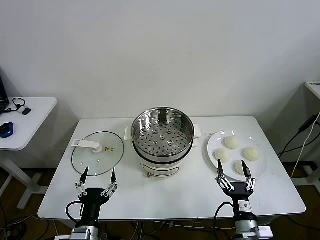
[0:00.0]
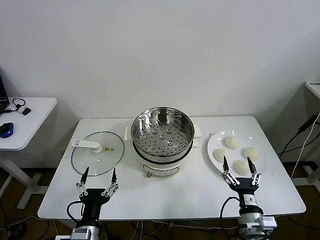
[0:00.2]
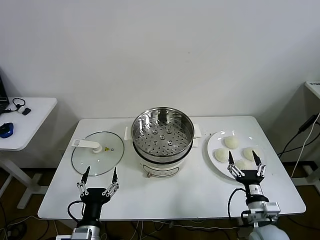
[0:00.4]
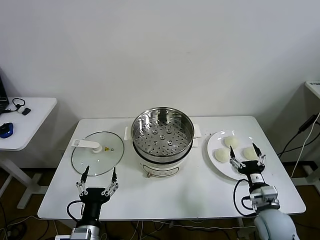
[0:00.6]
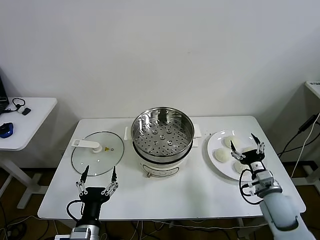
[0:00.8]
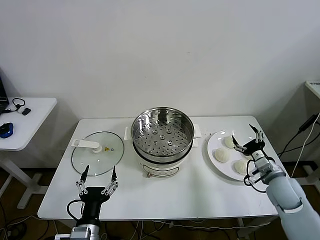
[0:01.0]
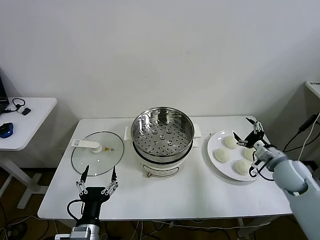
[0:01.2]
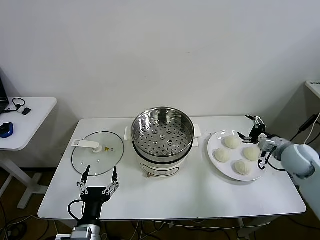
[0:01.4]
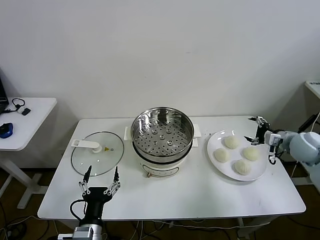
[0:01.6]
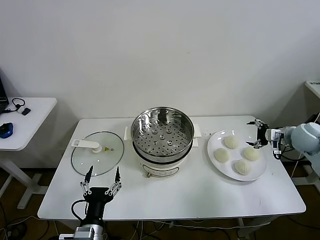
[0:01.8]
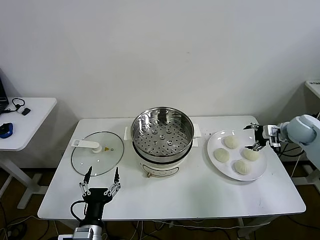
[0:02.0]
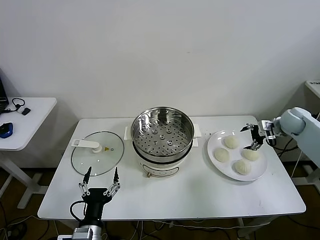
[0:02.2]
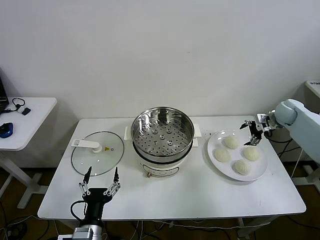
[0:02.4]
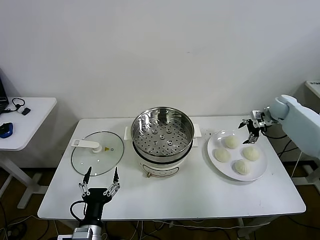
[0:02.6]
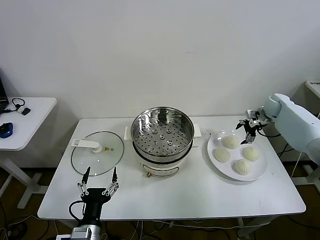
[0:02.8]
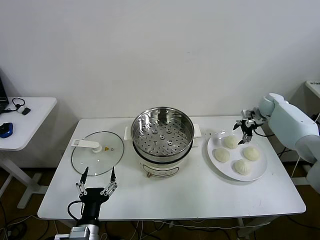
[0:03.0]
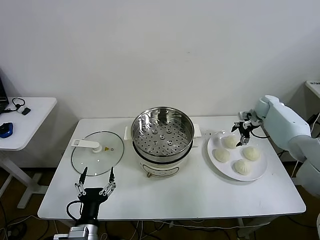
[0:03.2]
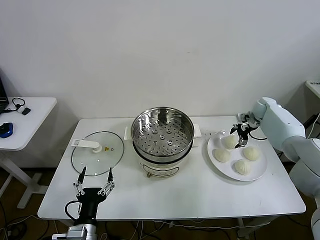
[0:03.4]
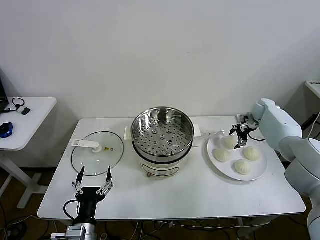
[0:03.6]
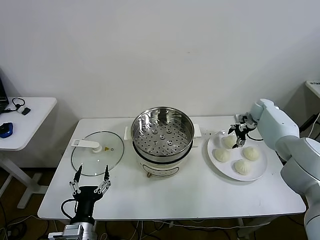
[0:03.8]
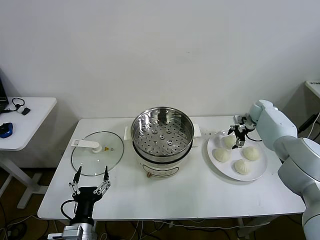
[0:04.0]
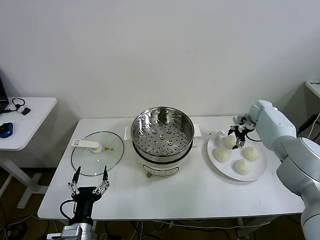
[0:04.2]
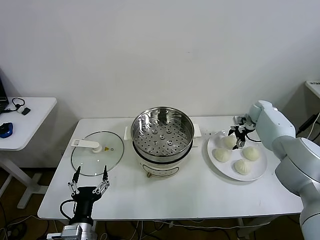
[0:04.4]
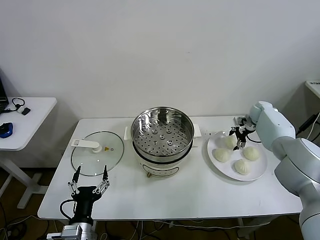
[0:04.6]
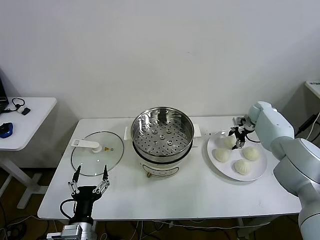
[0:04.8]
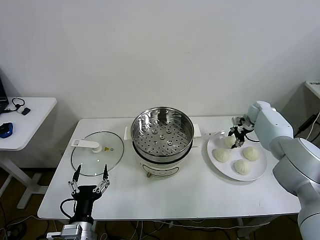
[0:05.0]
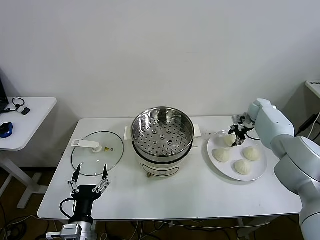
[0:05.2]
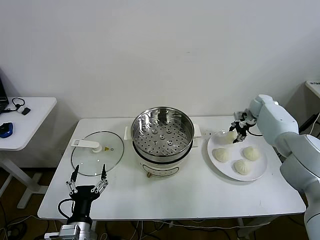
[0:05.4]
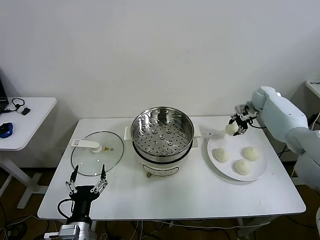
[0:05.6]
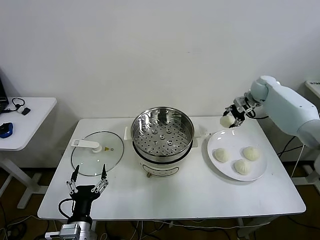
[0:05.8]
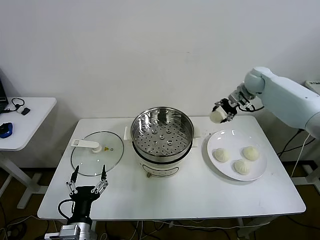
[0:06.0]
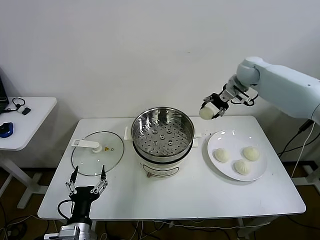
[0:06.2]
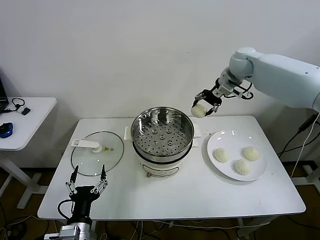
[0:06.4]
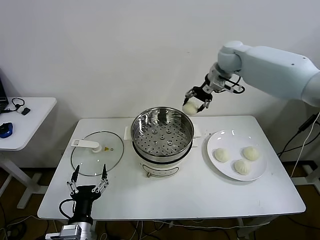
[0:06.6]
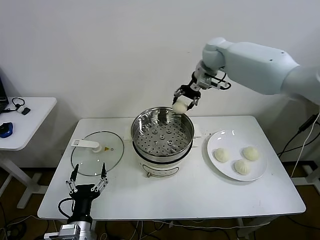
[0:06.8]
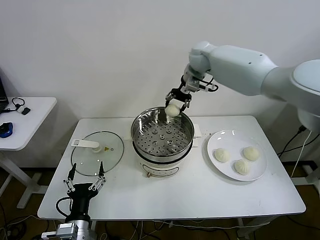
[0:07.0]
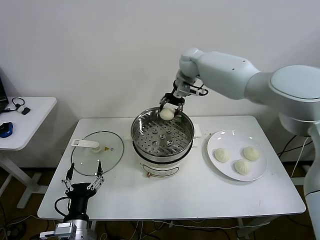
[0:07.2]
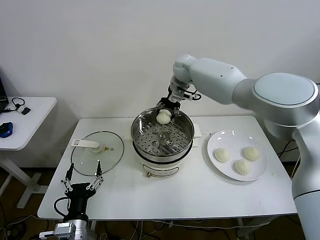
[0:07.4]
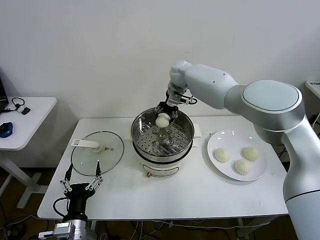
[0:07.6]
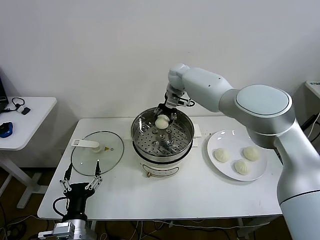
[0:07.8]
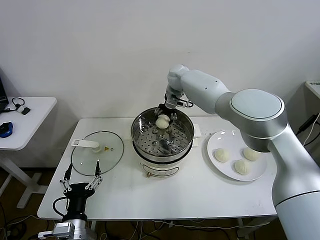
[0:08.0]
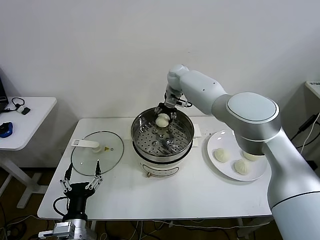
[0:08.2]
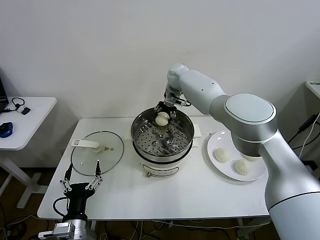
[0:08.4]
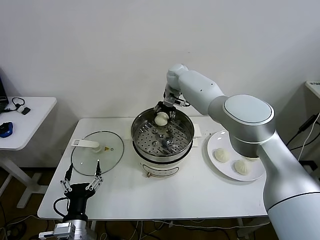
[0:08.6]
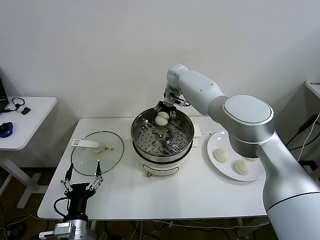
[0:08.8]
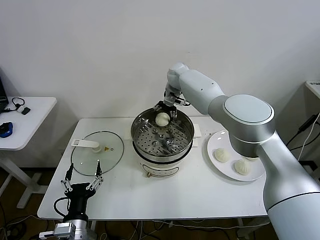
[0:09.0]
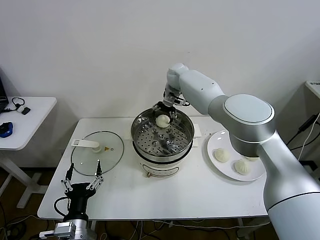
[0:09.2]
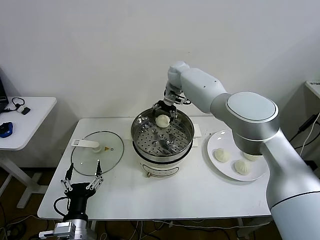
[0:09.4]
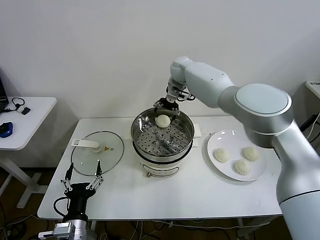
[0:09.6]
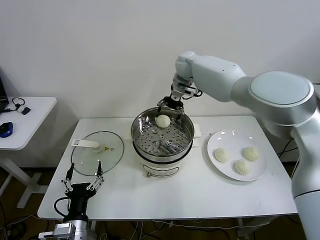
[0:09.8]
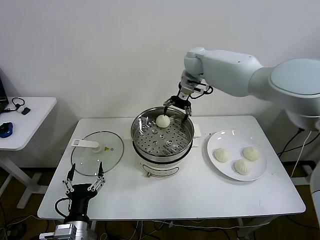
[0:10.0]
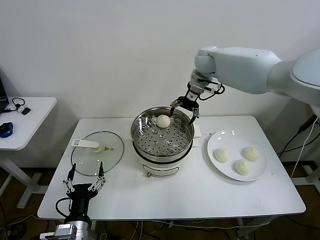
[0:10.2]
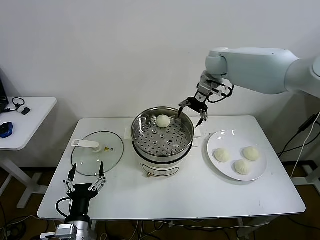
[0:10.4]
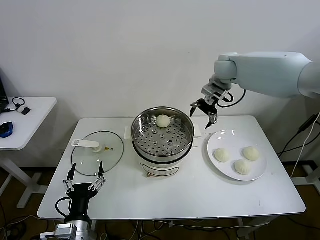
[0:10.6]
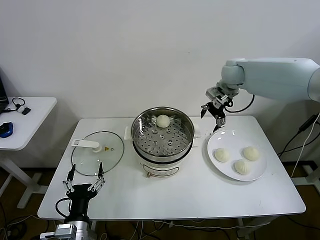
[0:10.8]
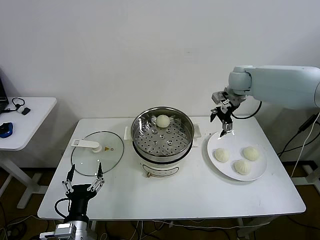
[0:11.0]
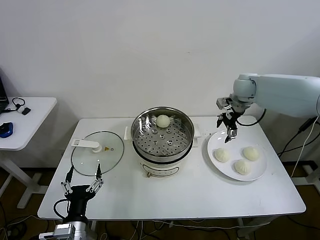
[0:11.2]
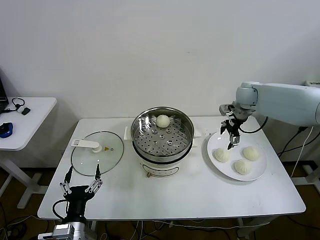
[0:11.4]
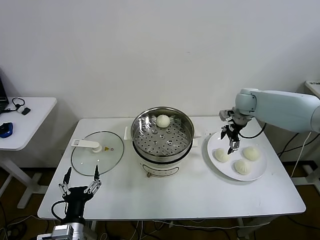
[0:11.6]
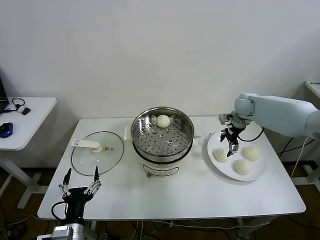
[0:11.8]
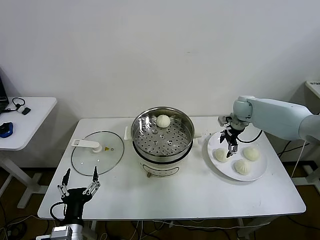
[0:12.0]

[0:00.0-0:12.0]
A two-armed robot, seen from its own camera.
Step, 0:00.0 to 0:05.0: Grasp the baozi in the plate with right gripper.
Step, 0:05.4 to 0:09.4: Place the baozi on the steamer with right gripper.
0:01.6 to 0:03.0: The right gripper is displaced forward by approximately 20 cm.
0:03.0 to 0:04.4: There are only small adjustments of the grippers.
0:04.4 to 0:06.0: The right gripper goes some 20 cm upward and to the left, and closes up.
0:06.0 to 0:07.6: The right gripper shifts about 25 cm to the left.
0:07.6 to 0:09.0: The right gripper opens.
0:09.0 to 0:10.4: The right gripper moves to the right, upward and backward, approximately 15 cm.
0:10.4 to 0:12.0: The right gripper shifts about 20 cm downward and to the right.

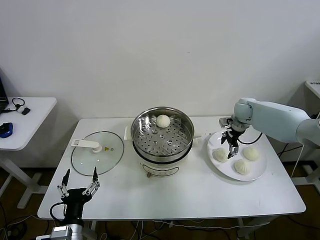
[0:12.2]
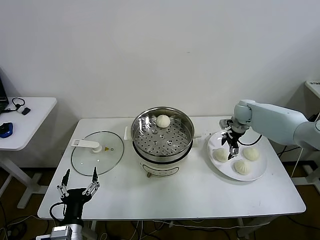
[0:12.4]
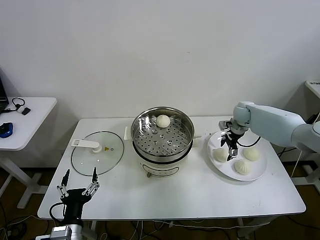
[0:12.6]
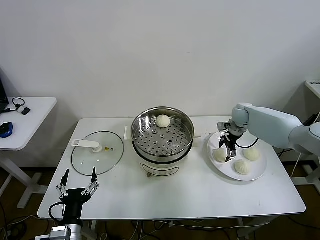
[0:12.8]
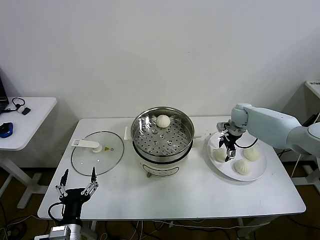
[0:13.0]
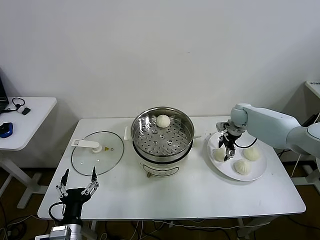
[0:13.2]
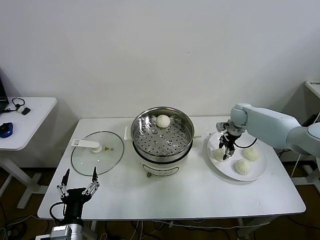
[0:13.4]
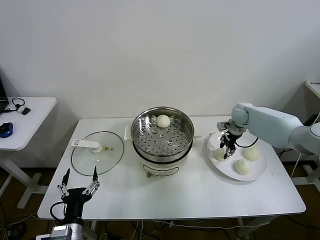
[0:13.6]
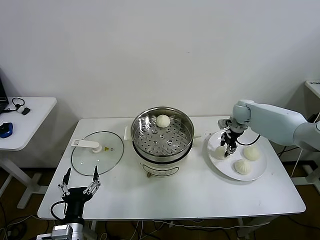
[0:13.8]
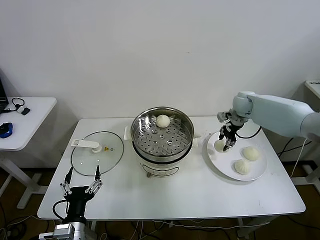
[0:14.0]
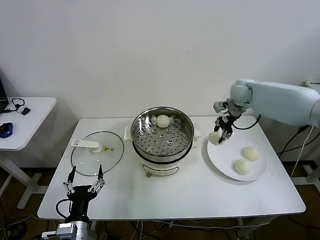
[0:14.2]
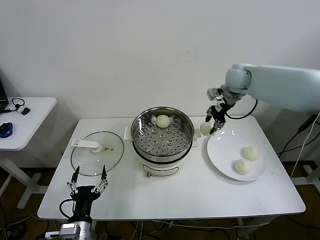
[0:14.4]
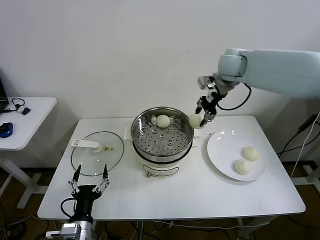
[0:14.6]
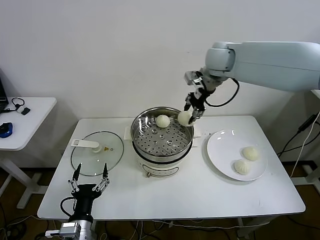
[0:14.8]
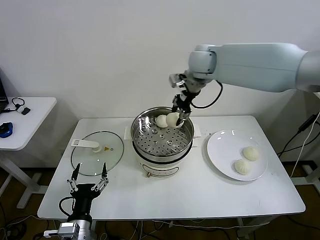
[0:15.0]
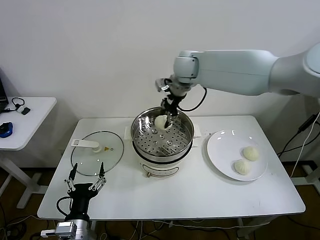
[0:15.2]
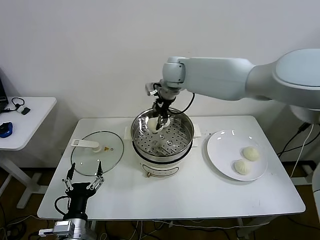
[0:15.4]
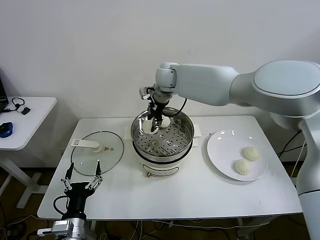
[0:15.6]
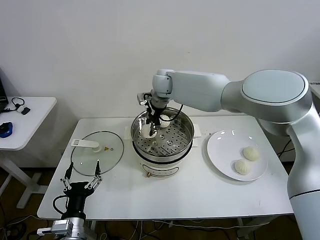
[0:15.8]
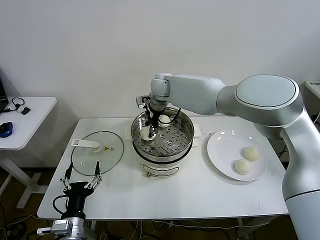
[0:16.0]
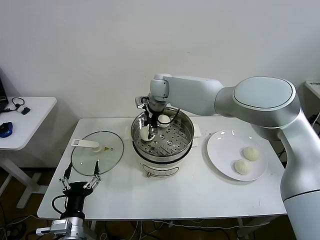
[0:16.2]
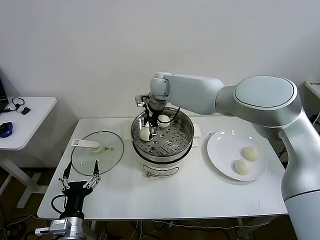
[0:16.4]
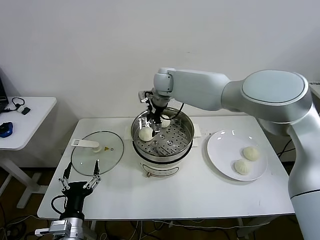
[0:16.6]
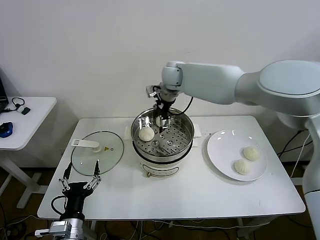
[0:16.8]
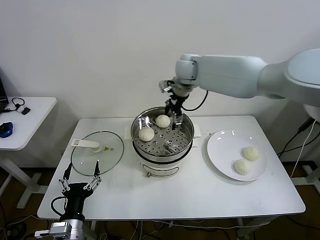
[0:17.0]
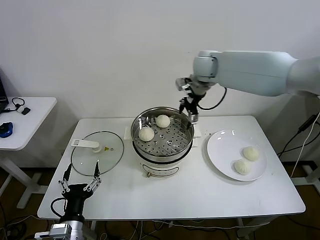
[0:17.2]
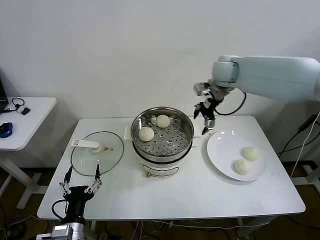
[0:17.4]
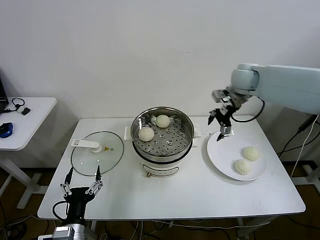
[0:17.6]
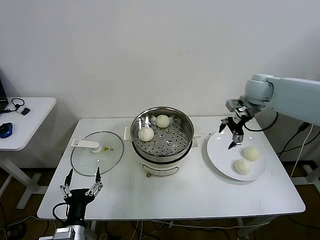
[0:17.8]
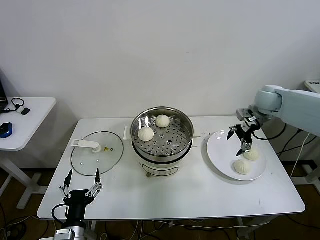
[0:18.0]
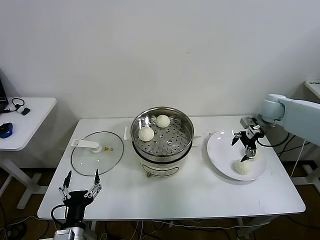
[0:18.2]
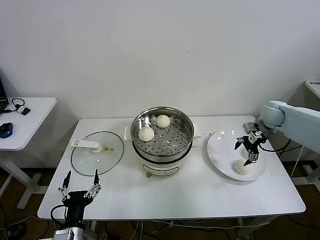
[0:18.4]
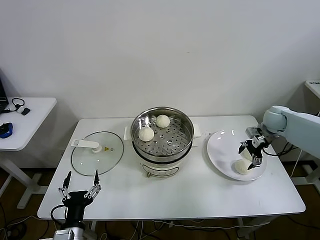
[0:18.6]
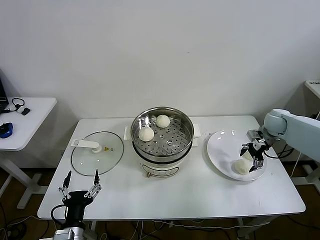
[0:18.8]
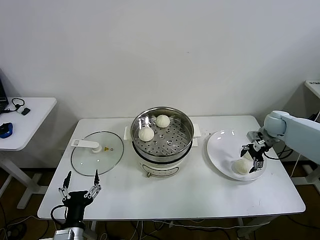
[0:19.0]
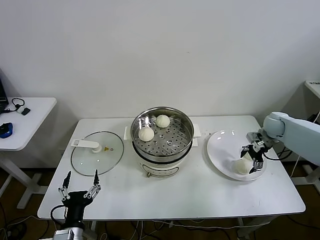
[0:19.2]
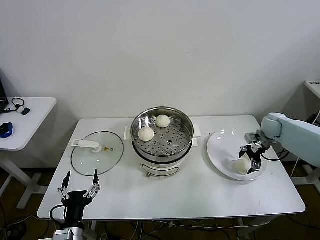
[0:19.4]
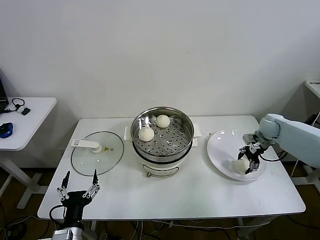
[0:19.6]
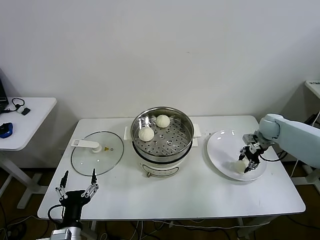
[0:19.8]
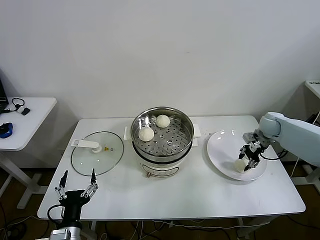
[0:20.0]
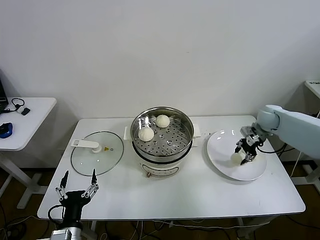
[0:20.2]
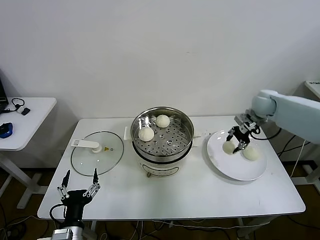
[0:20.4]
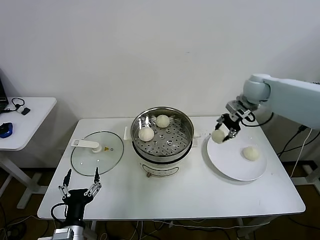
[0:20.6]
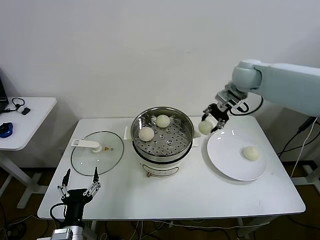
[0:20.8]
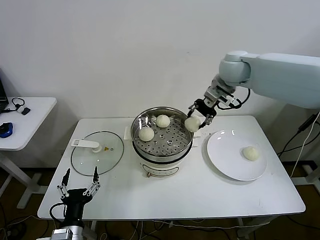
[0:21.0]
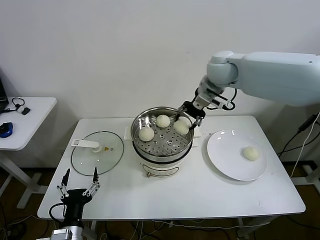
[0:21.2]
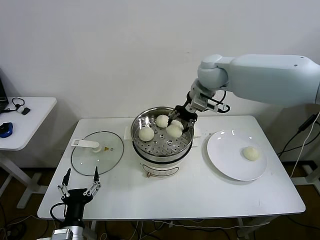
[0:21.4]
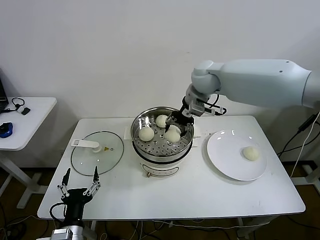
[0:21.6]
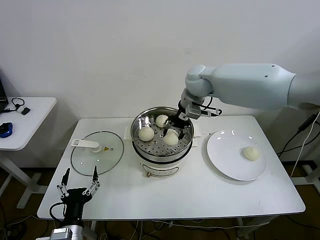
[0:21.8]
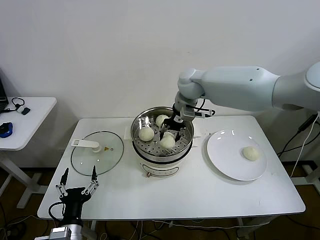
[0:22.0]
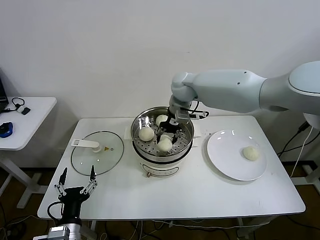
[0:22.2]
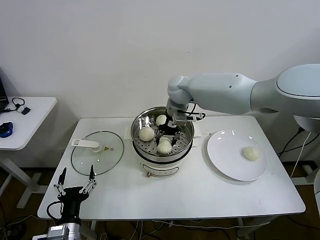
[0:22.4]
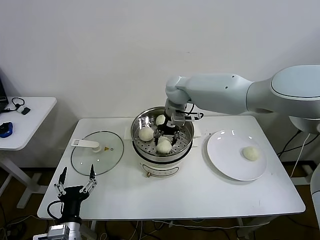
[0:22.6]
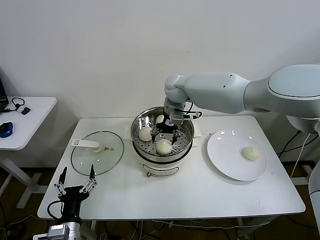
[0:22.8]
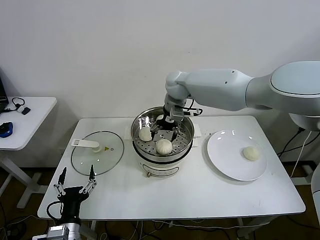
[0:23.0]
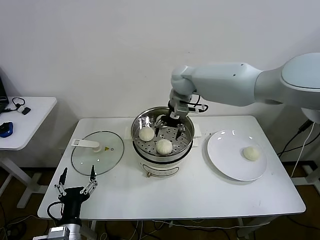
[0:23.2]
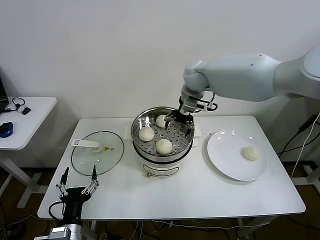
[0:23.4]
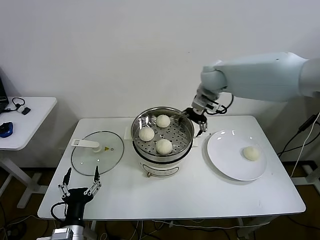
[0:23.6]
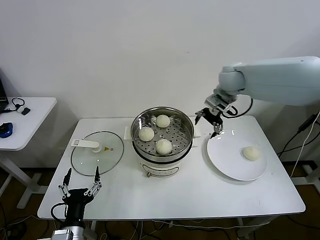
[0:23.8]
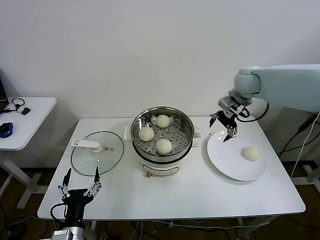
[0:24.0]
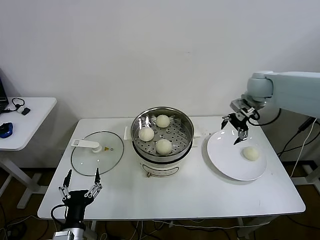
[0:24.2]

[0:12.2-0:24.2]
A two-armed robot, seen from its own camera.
Step, 0:13.8 to 0:16.6: Place the baozi on the steamer with right gripper.
Step, 0:16.8 to 0:19.6: Grasp the baozi in the plate with right gripper.
Step, 0:20.0 to 0:23.0: Place the baozi on the steamer with right gripper.
0:12.2 to 0:13.8: The right gripper closes.
0:13.8 to 0:15.2: The right gripper heads to the left and upward, covering approximately 35 cm.
0:15.2 to 0:16.6: The right gripper heads downward, covering roughly 5 cm, and opens up.
0:16.6 to 0:18.2: The right gripper travels to the right by roughly 40 cm.
0:18.2 to 0:19.8: The right gripper shifts roughly 10 cm downward, and closes its fingers.
0:19.8 to 0:21.2: The right gripper is displaced to the left and upward by roughly 35 cm.
0:21.2 to 0:22.6: The right gripper travels to the left and downward by about 15 cm.
0:22.6 to 0:24.2: The right gripper is displaced to the right by some 30 cm, and opens up.
